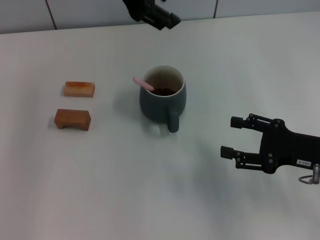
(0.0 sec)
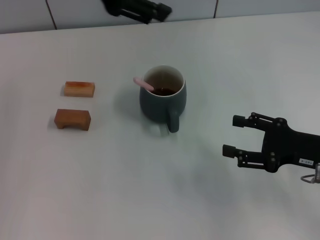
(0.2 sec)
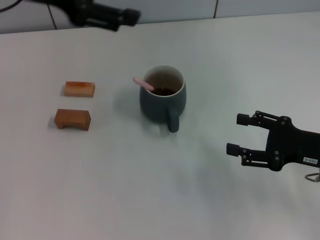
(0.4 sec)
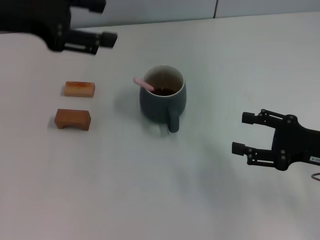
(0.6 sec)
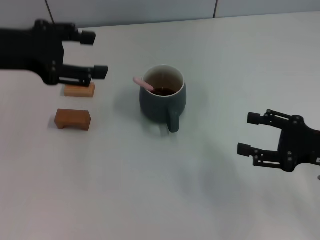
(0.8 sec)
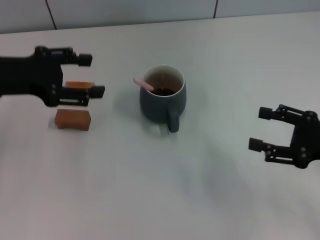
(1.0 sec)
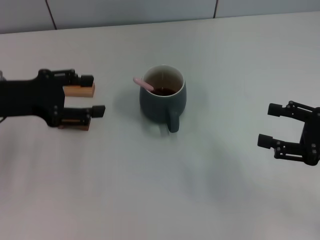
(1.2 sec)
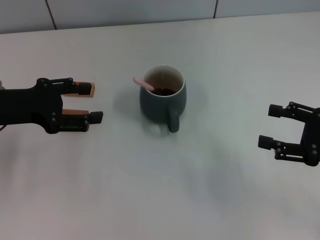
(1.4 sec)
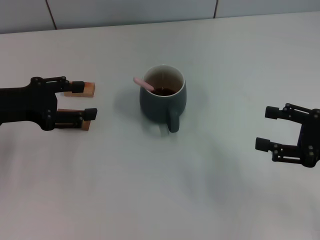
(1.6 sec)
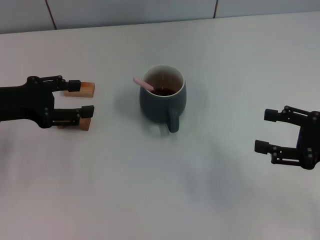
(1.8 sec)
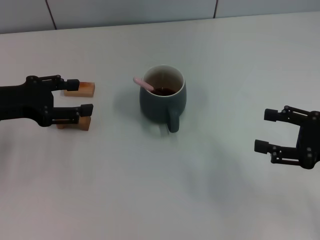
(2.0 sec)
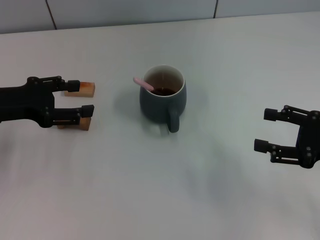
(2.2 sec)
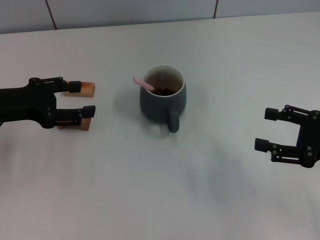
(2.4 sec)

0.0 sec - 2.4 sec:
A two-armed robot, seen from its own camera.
Task of the whole recording: Move the grey cup to the center, lift the pink spoon, stir it three times in the cup, and put the spoon into the cup.
0.0 sec - 1.2 sec: The left gripper travels downward, to the left and backward by approximately 25 cm, and opens up; the right gripper shifts by about 5 cm.
1.2 sec - 2.4 sec: The grippers make only small movements.
